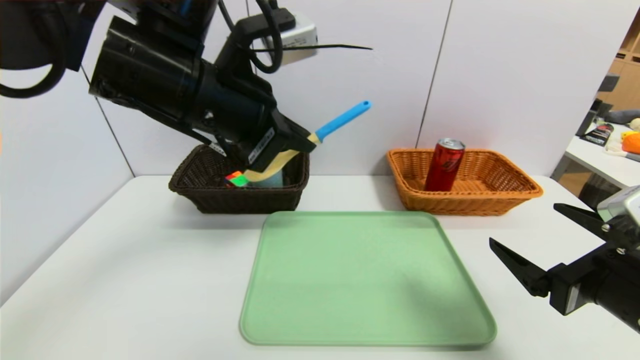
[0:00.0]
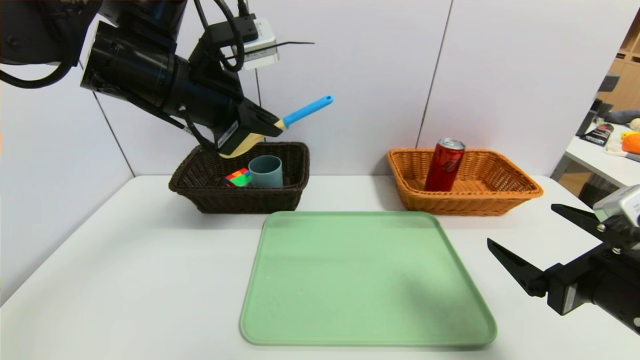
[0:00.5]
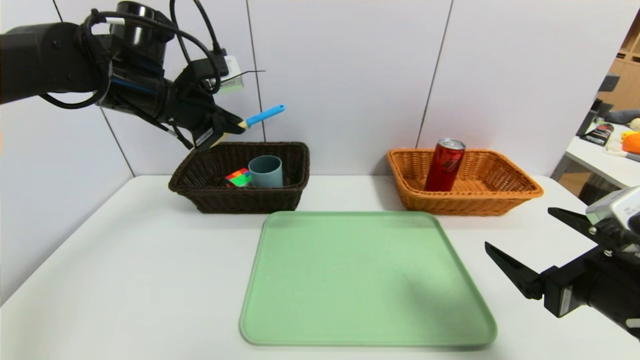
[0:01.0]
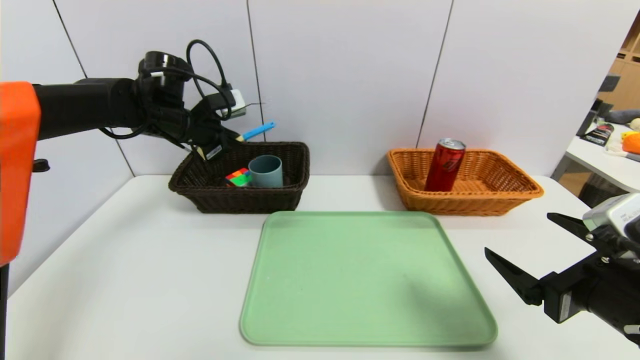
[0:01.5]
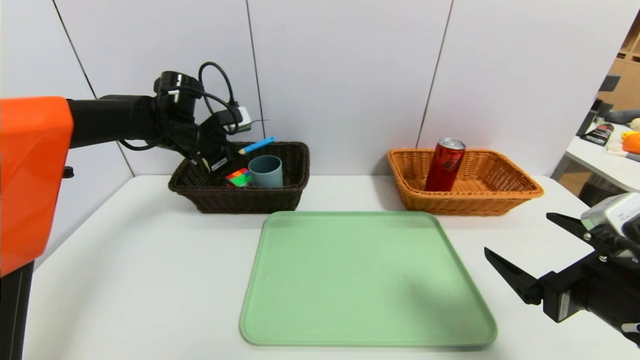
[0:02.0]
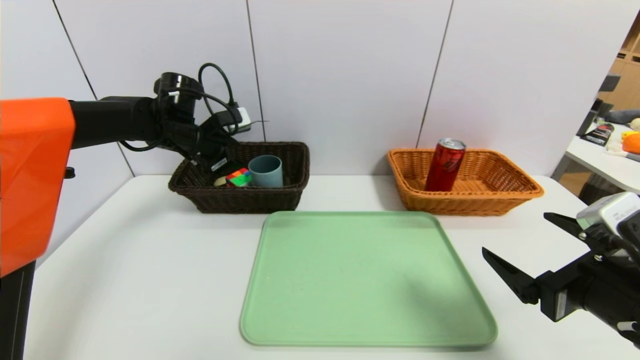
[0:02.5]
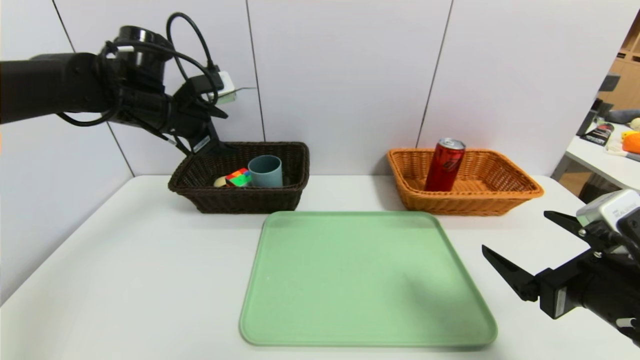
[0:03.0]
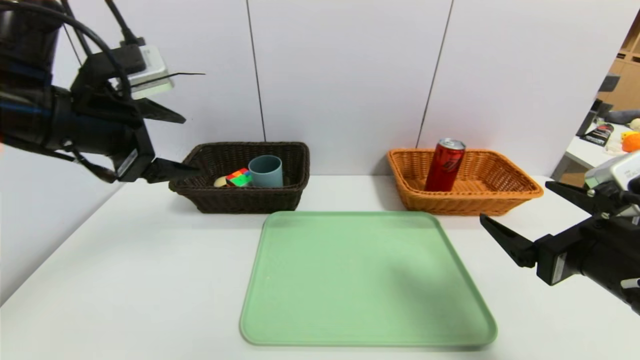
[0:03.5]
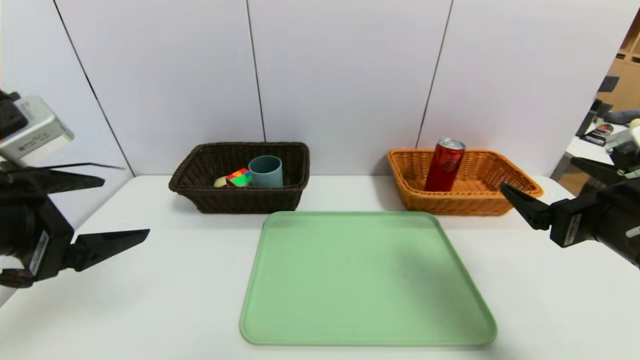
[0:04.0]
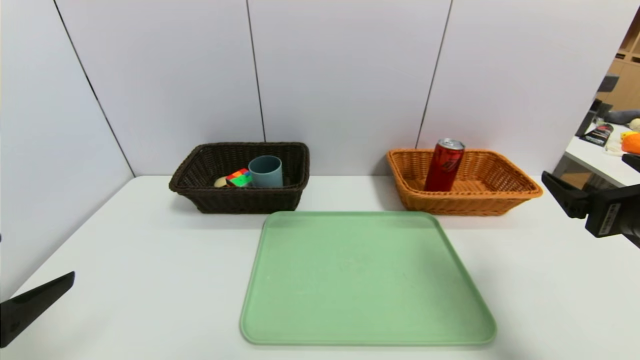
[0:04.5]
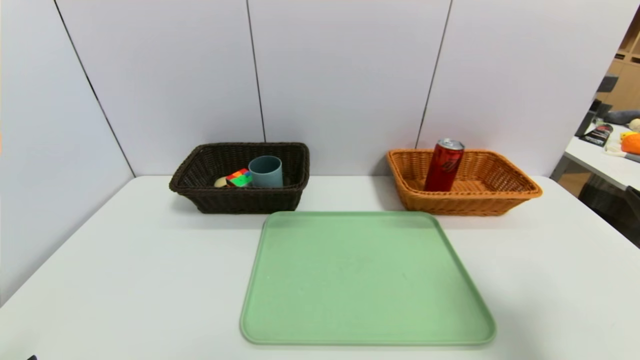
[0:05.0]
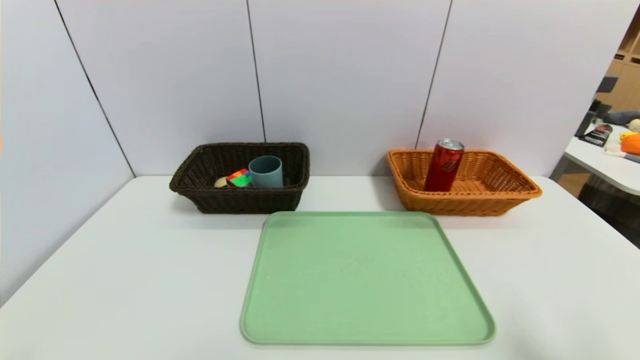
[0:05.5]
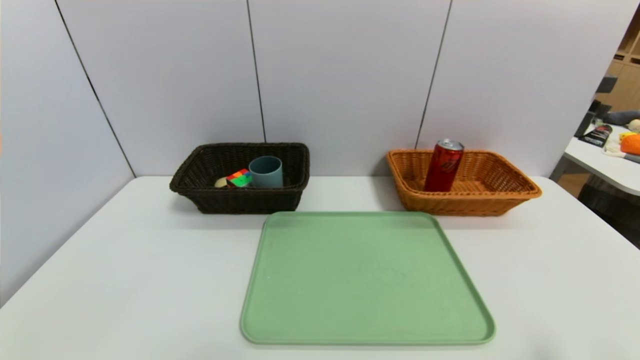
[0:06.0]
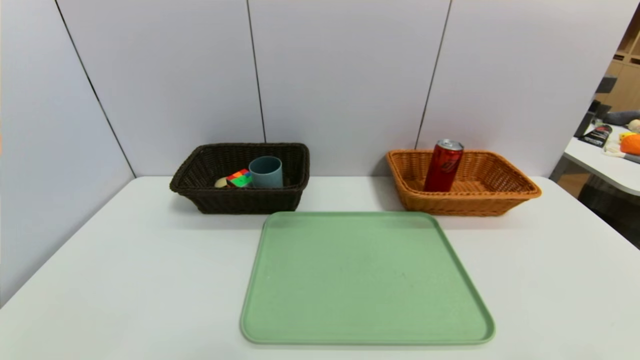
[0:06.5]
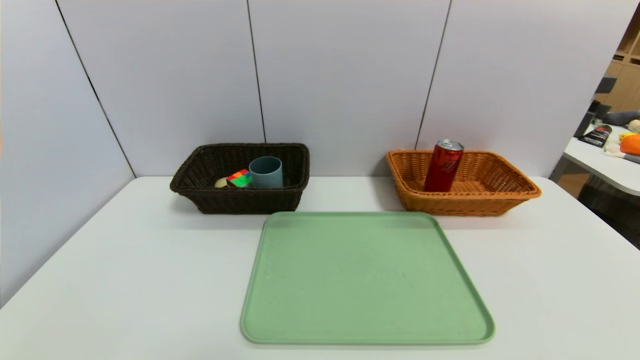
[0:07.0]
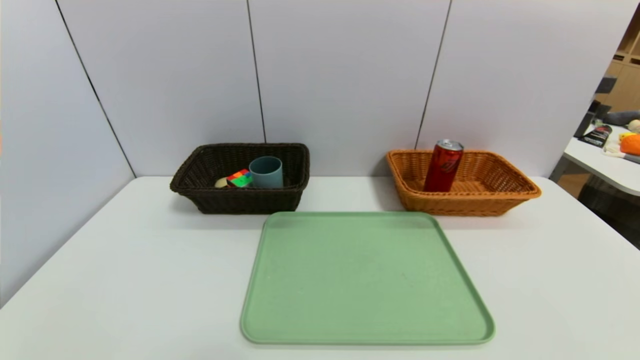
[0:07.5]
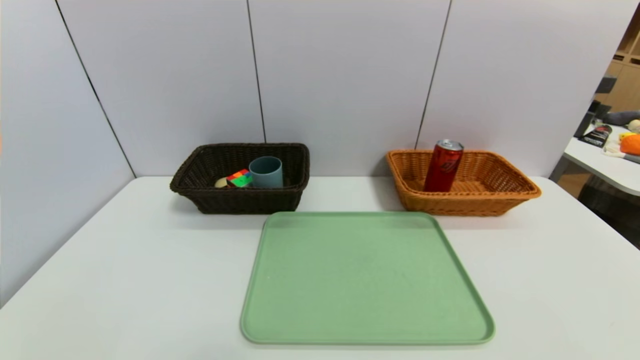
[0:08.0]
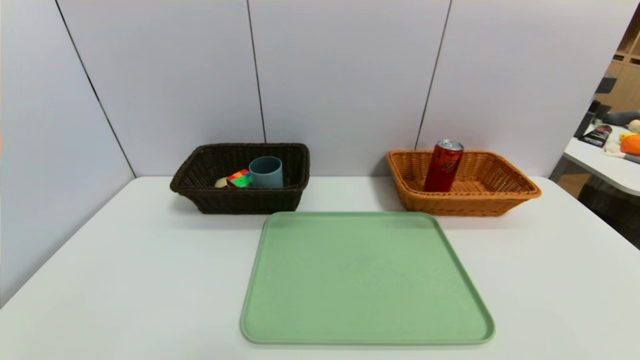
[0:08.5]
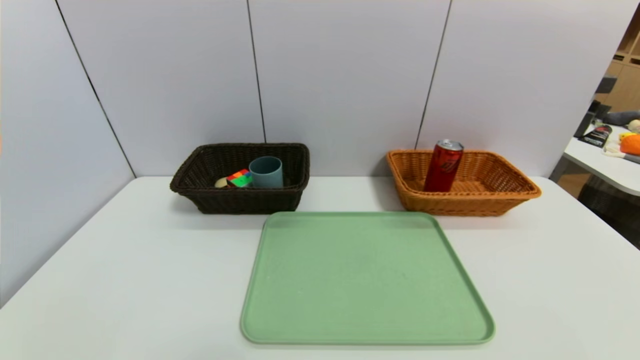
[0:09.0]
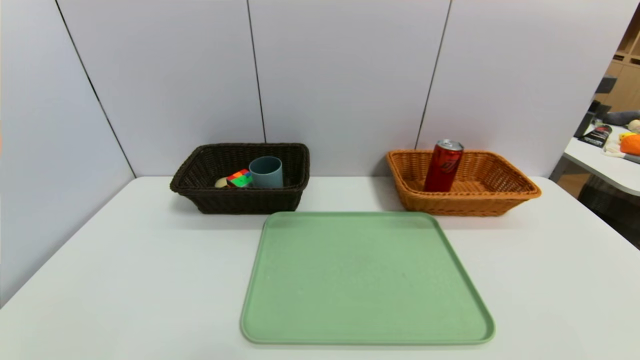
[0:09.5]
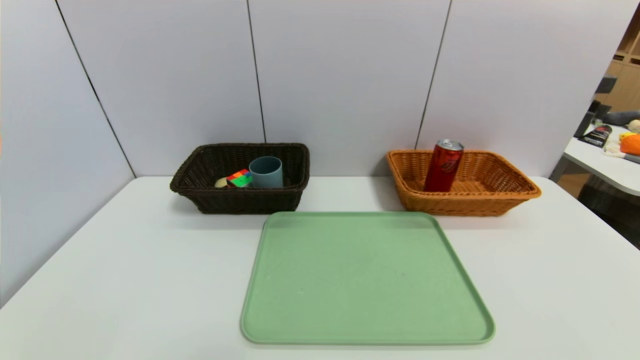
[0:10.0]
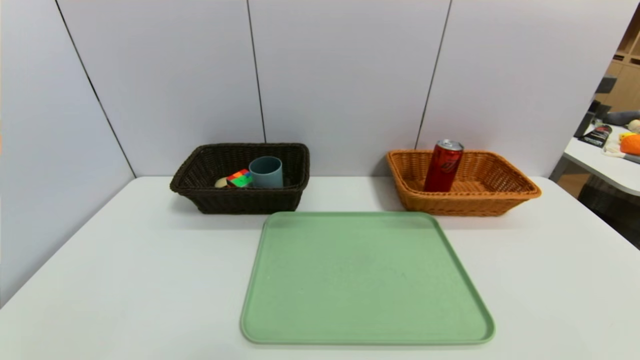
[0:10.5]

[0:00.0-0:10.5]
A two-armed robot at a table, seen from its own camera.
Task of the whole recording: place the food in the right basket with the right gripper, and place the non food items in the left basket with the left gripper.
Step, 0:00.0 to 0:03.5: Grasp the spoon and put it in the left basket.
0:00.0 to 0:02.0: The left gripper shifts some 25 cm forward, downward and to the left.
0:02.0 to 0:04.0: The right gripper ends up some 5 cm from where it was; the left gripper moves backward, approximately 30 cm, and opens up.
0:04.0 to 0:06.5: The left gripper travels backward and downward by roughly 25 cm. Meanwhile the right gripper heads backward, covering about 20 cm.
